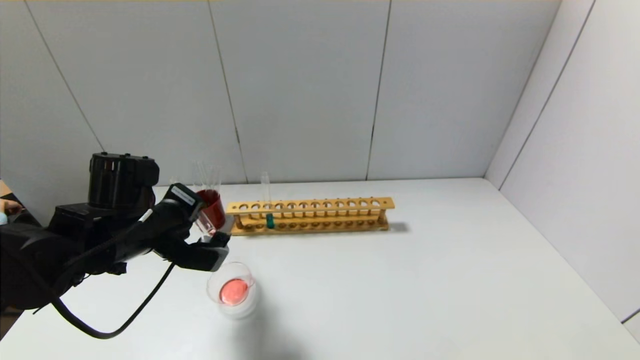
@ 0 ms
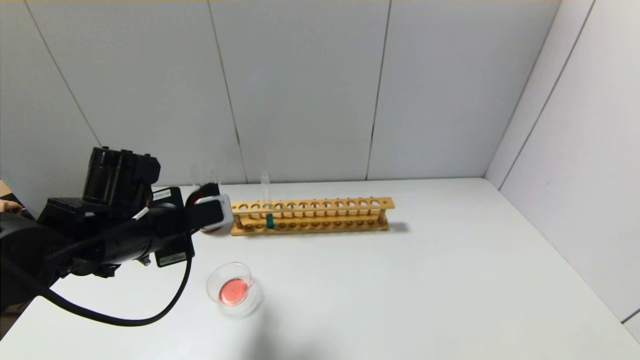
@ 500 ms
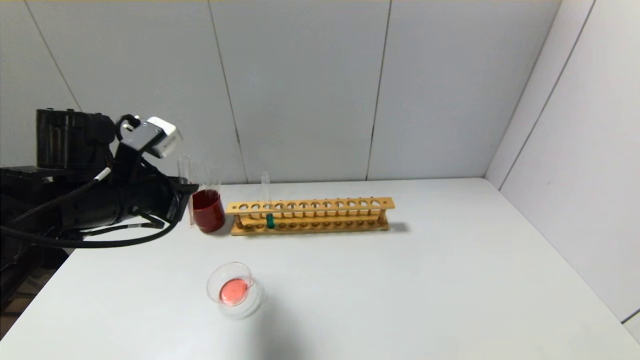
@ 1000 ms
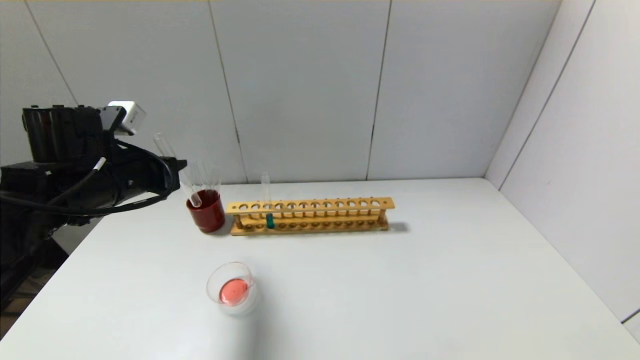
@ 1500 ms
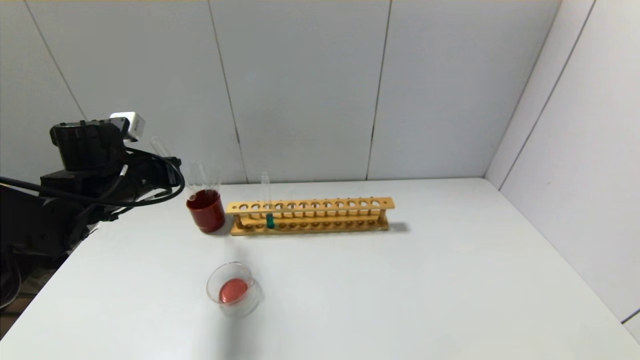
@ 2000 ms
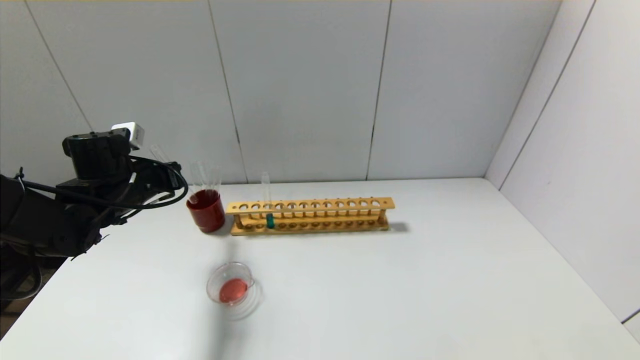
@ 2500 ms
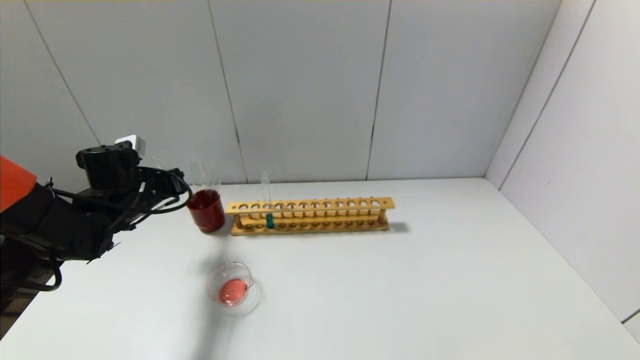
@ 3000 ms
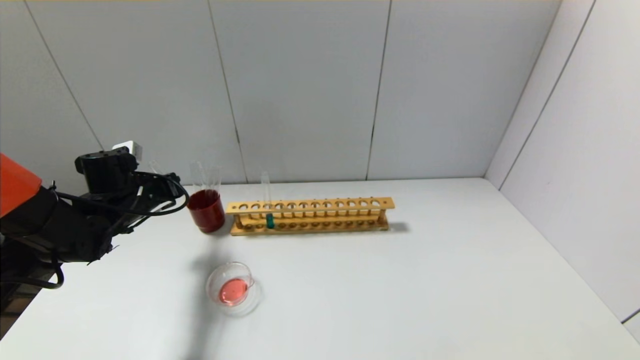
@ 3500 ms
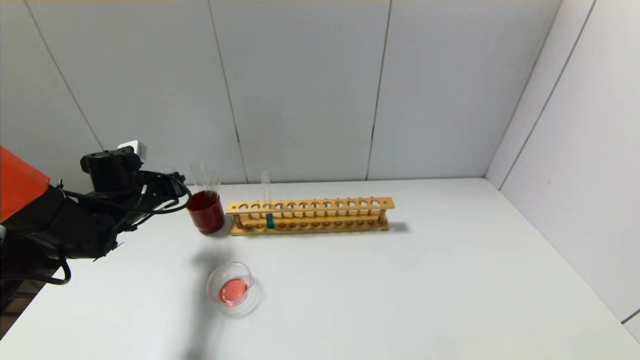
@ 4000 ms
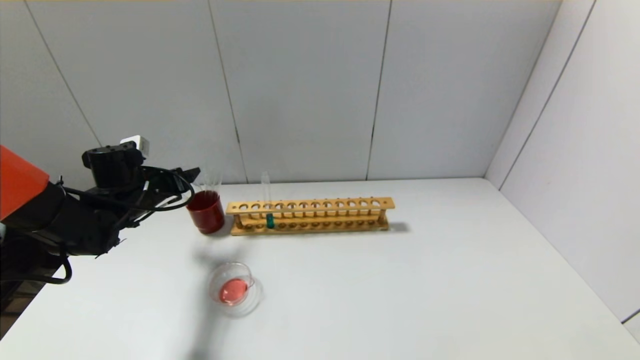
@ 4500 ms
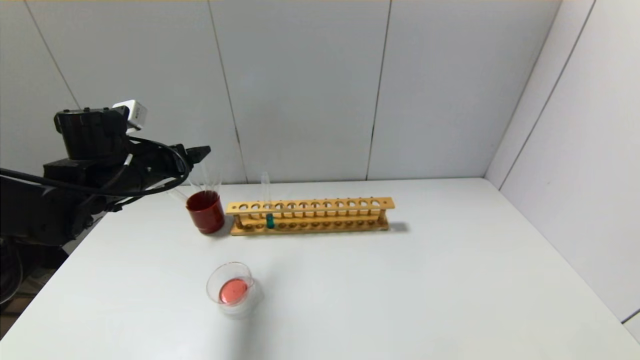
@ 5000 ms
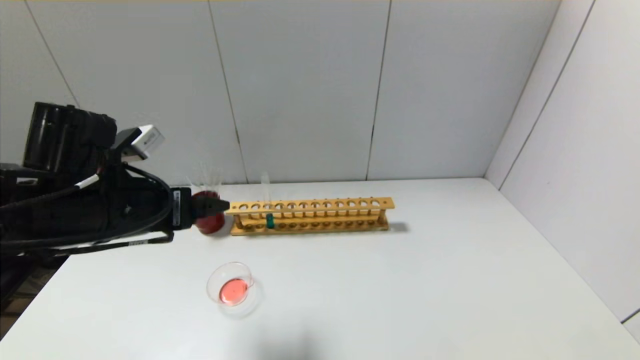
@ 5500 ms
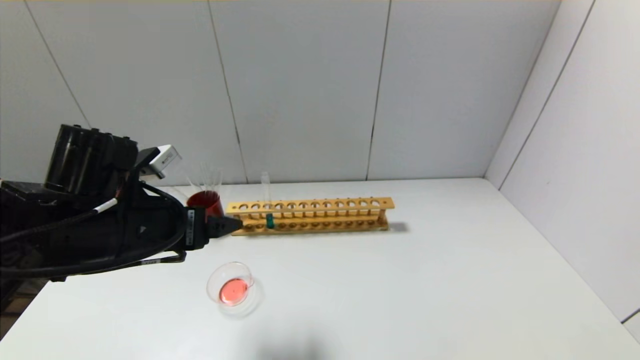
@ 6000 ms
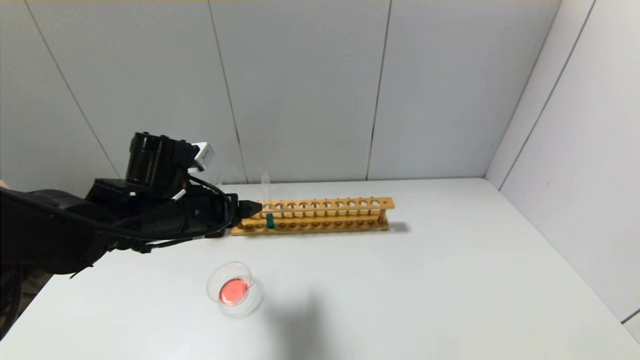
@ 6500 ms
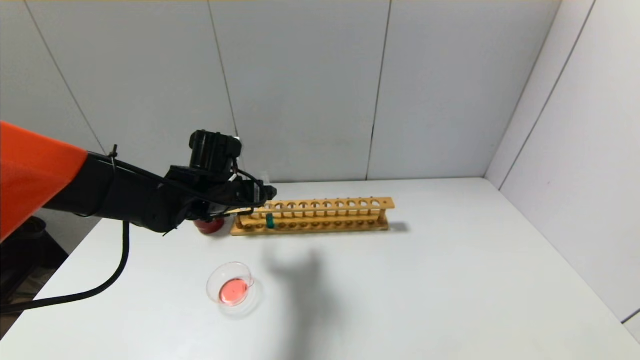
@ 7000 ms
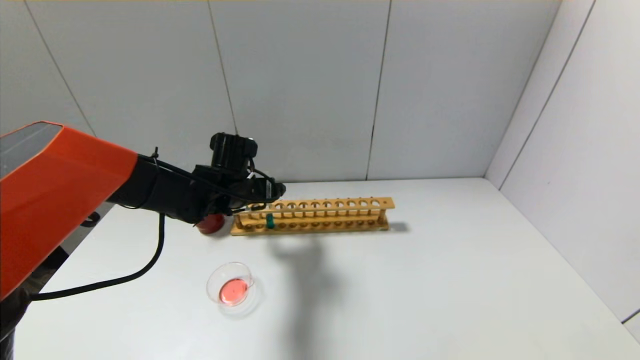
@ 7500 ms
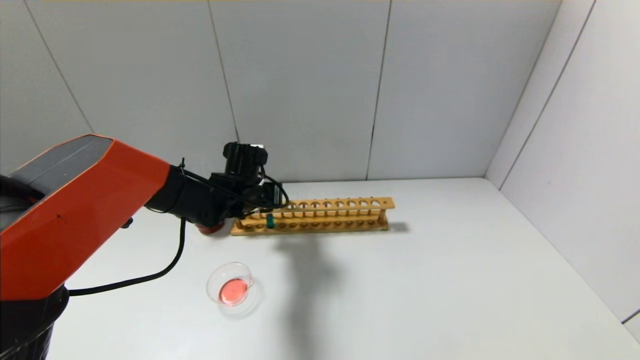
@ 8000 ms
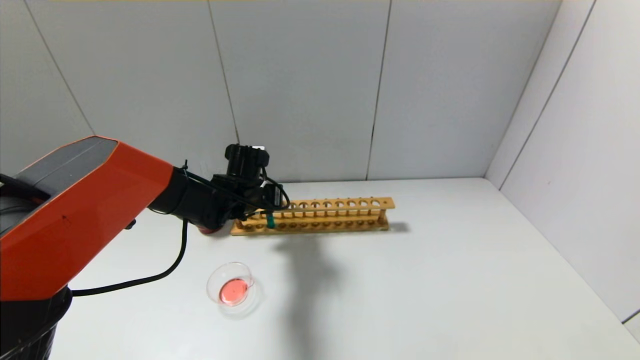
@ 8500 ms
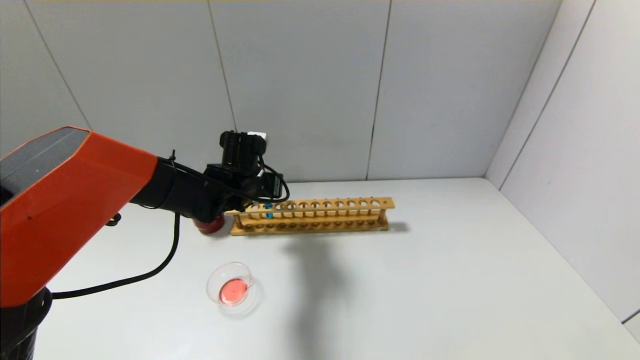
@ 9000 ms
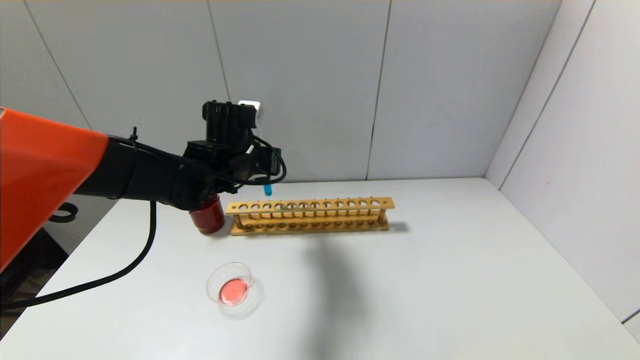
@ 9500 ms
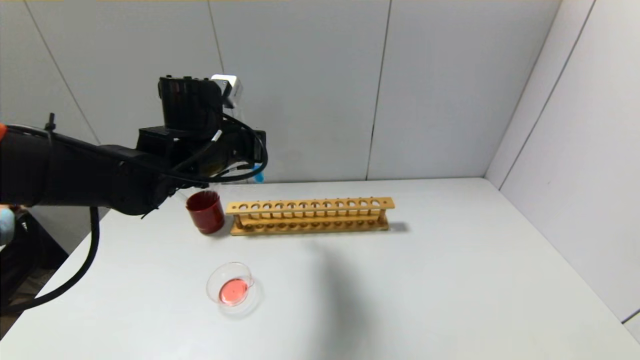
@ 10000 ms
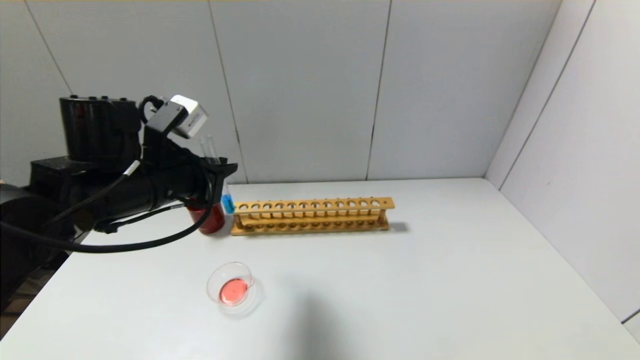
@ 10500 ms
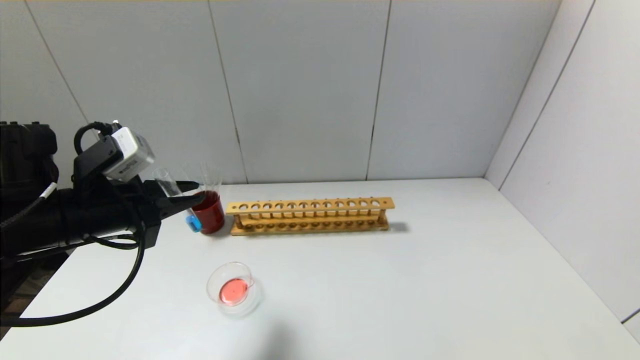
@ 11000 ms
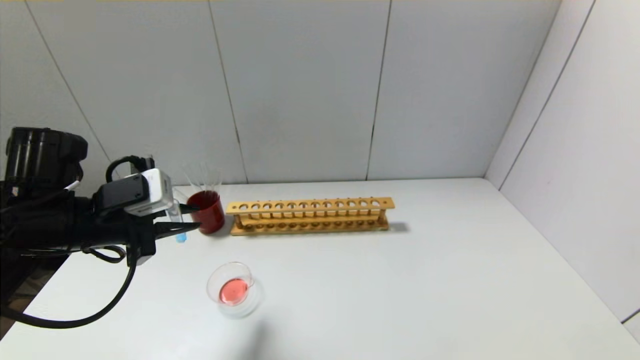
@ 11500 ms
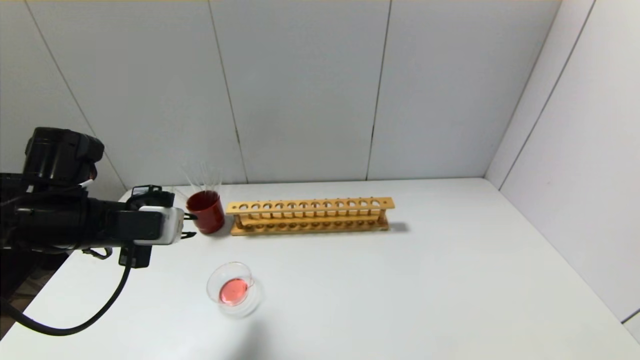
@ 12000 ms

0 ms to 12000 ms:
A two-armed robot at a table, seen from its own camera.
Step, 0 ms to 4000 ms: Place the test tube into the brown cup with the left gripper.
Step, 4500 ms to 8000 ms: Grasp the blue reagent with the left gripper.
0 ms to 2000 ms: The left gripper is displaced forward and to the left by roughly 10 cm.
2000 ms to 4000 ms: The left gripper is displaced downward by about 5 cm.
4000 ms to 6000 ms: The left gripper moves backward, to the right and upward, some 20 cm, and opens up.
6000 ms to 8000 ms: The left gripper goes approximately 20 cm forward, downward and to the right, and closes its fingers.
8000 ms to 10000 ms: The left gripper moves upward and backward, some 15 cm, and closes its fingers.
10000 ms to 12000 ms: The left gripper travels to the left and backward by approximately 15 cm.

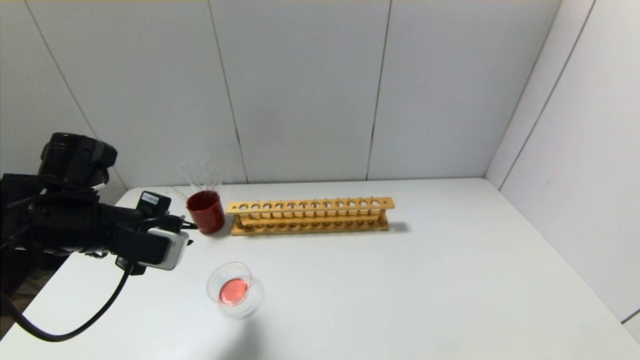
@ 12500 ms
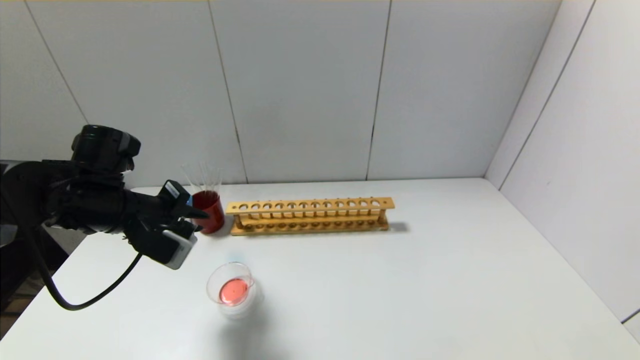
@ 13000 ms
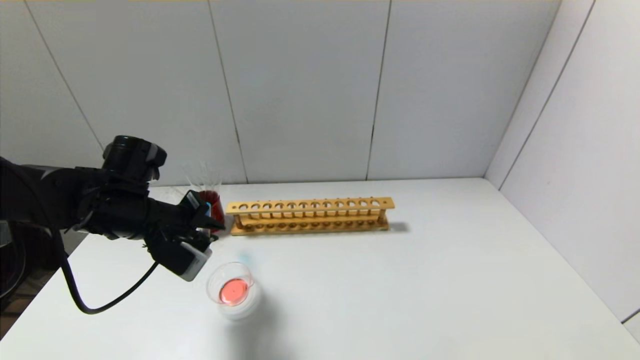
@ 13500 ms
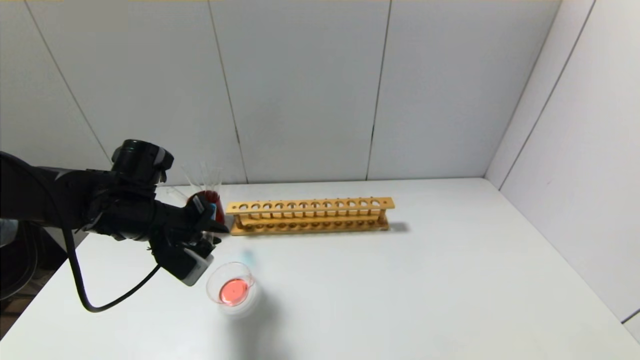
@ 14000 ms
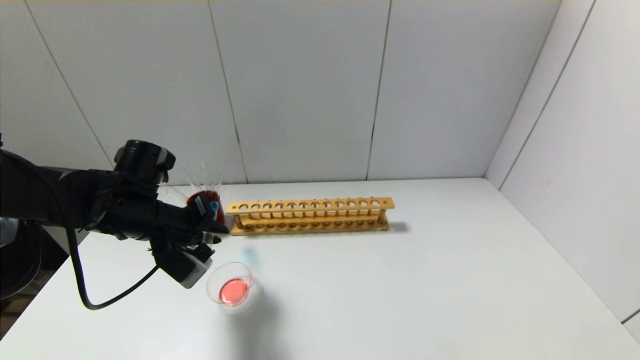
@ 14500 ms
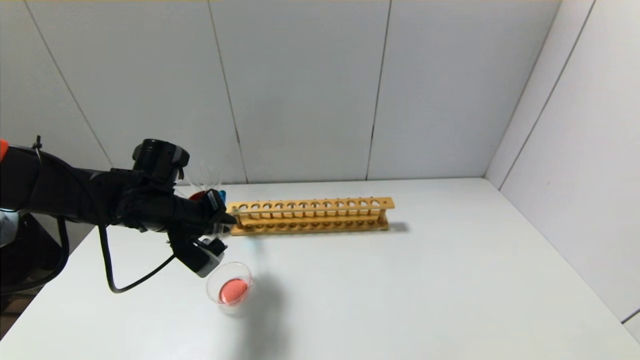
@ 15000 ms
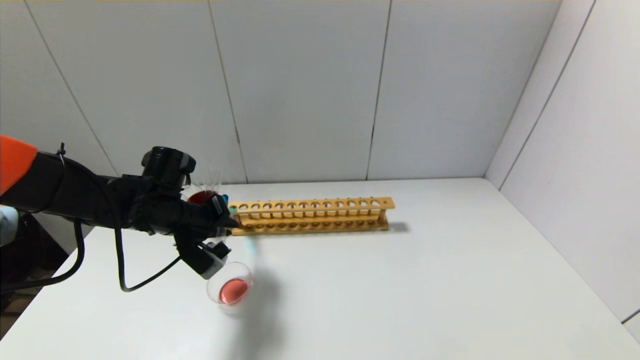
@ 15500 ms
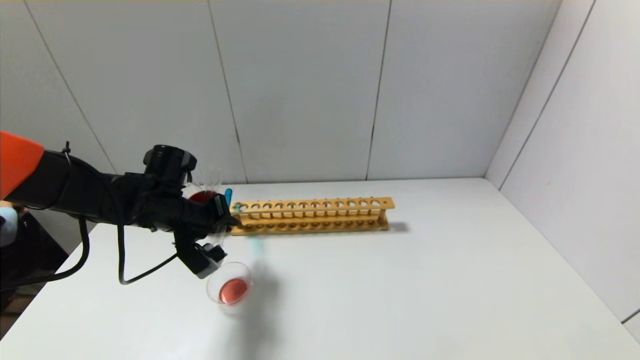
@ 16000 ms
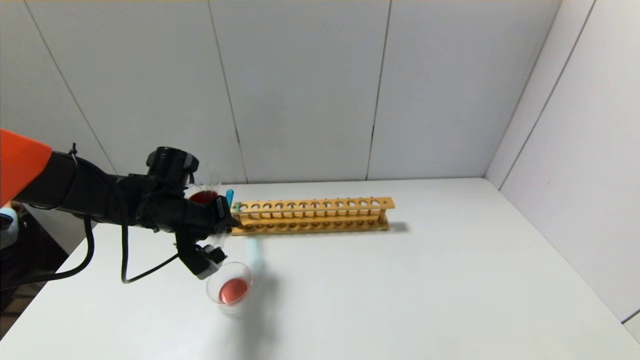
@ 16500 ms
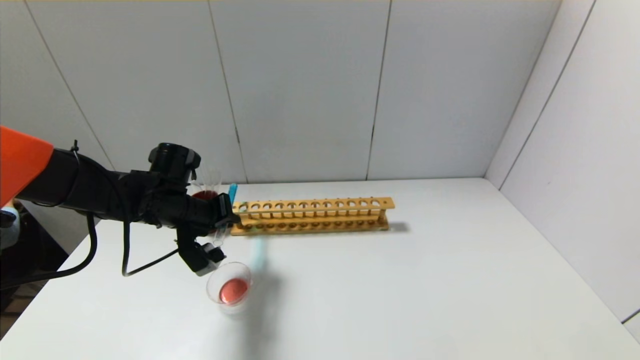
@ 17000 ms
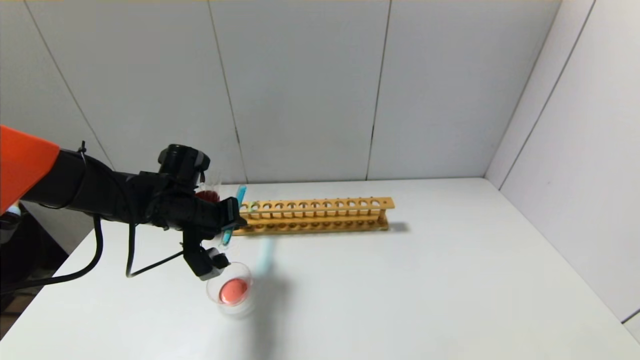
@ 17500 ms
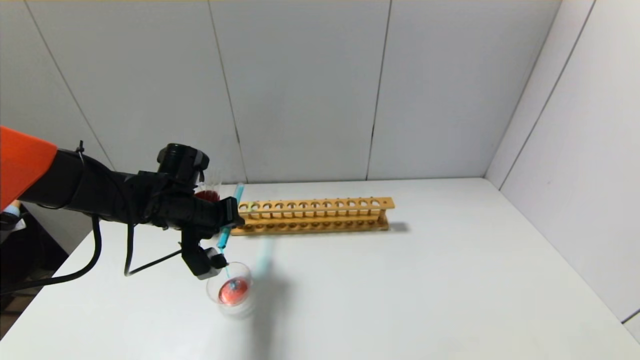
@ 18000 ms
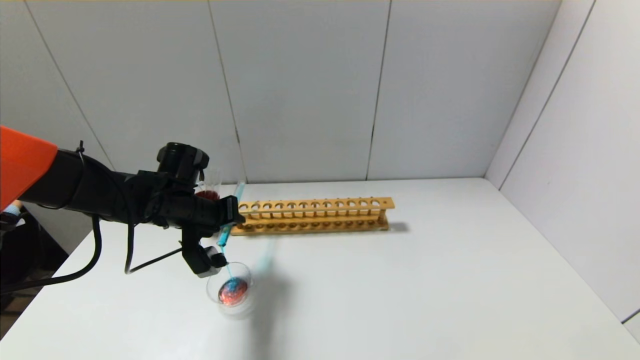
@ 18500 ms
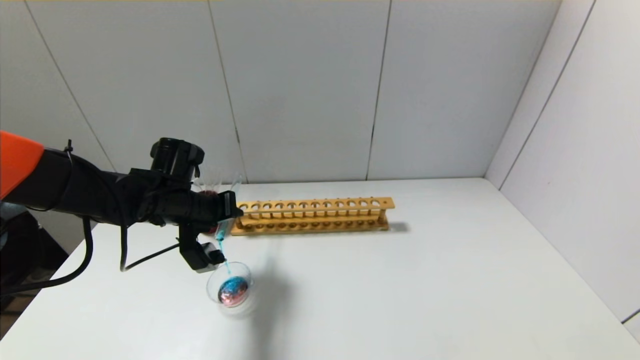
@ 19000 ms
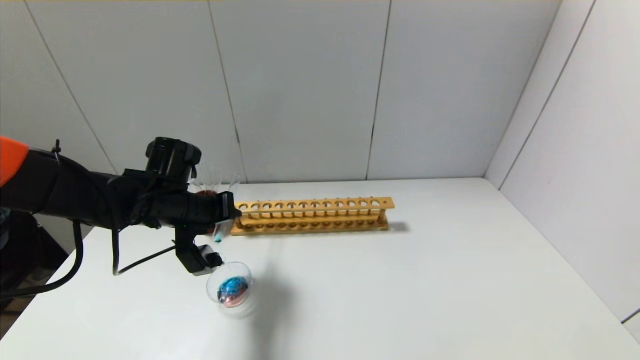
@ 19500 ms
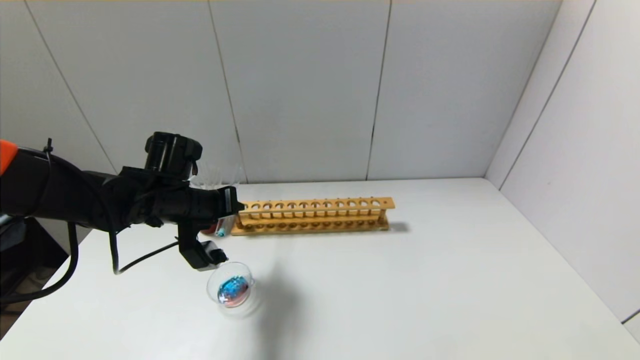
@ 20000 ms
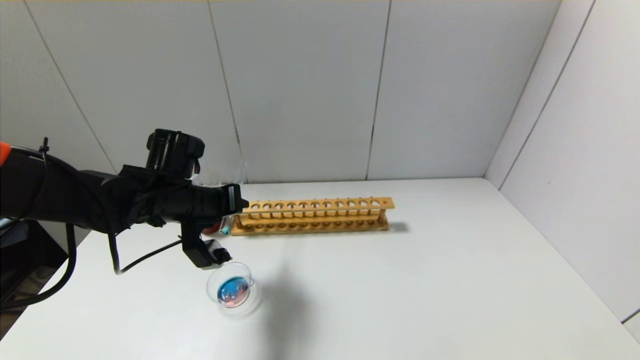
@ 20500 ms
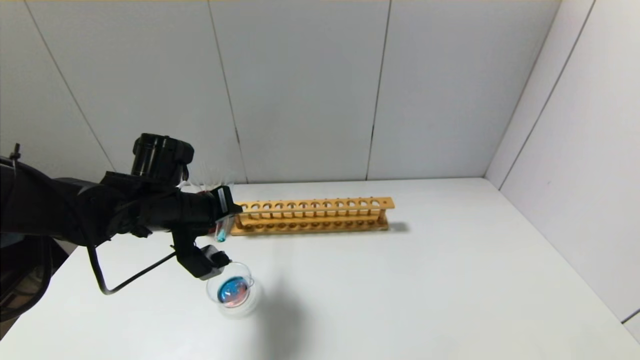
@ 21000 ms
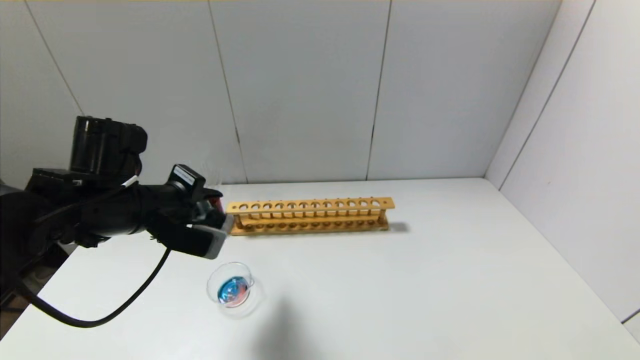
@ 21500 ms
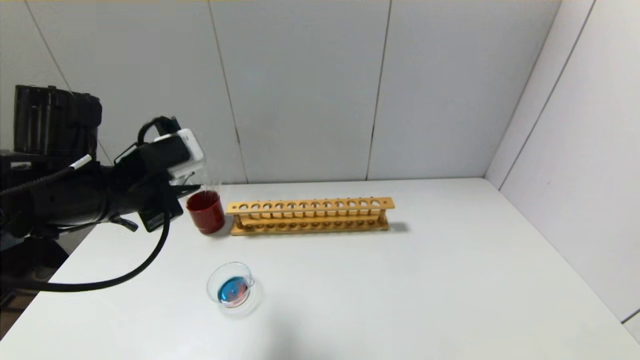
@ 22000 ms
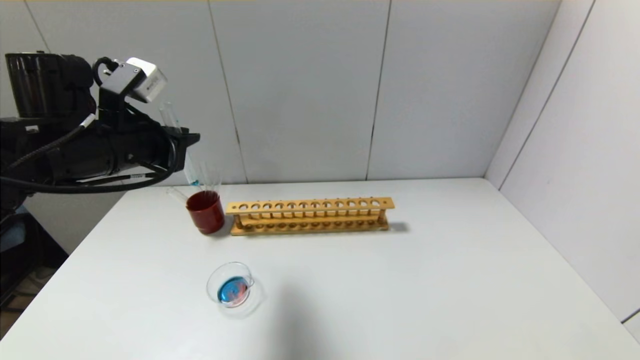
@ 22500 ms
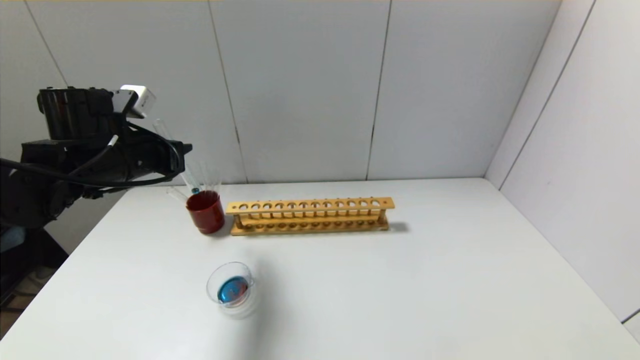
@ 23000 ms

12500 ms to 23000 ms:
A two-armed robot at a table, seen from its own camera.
Step, 12500 ms to 21000 ms: Pour the blue reagent into the graduated cylinder with the left gripper.
12500 ms to 14500 ms: The left gripper moves forward, about 5 cm.
14500 ms to 16500 ms: The left gripper changes place by approximately 5 cm.
16500 ms to 19000 ms: The grippers make only small movements.
19000 ms to 21000 ms: The grippers make only small movements.
21000 ms to 23000 ms: The left gripper shifts some 10 cm to the left and upward.
